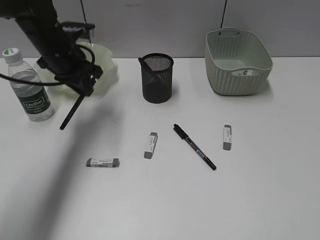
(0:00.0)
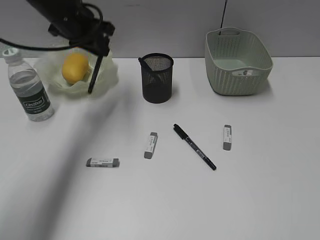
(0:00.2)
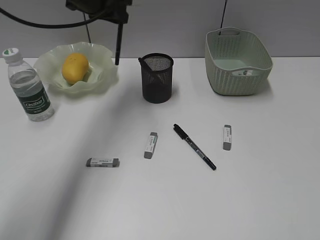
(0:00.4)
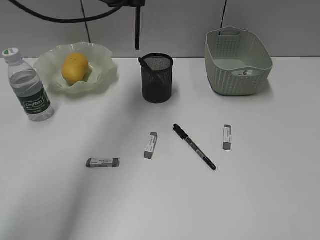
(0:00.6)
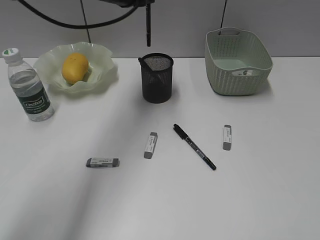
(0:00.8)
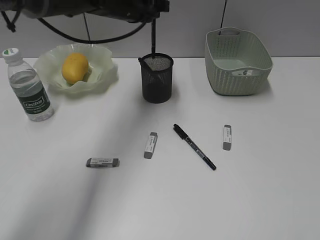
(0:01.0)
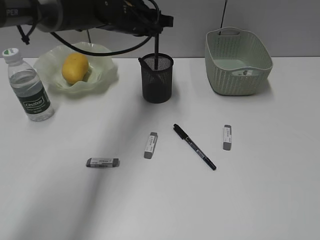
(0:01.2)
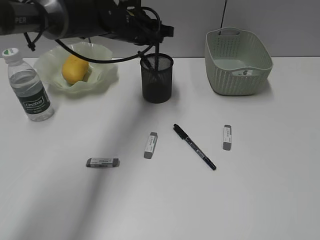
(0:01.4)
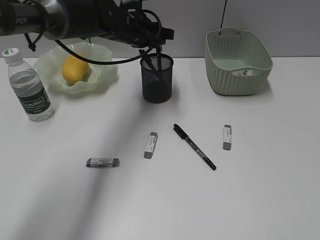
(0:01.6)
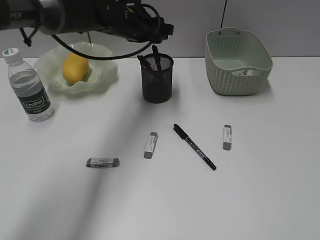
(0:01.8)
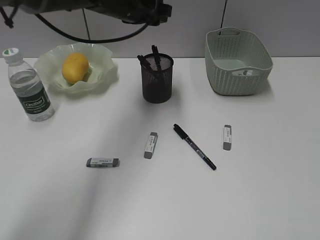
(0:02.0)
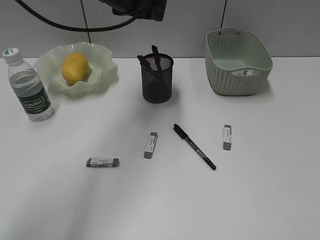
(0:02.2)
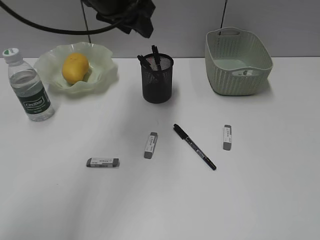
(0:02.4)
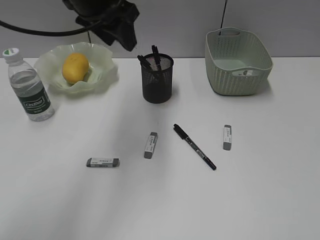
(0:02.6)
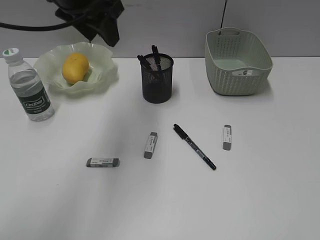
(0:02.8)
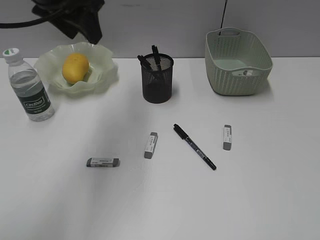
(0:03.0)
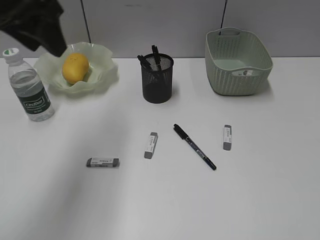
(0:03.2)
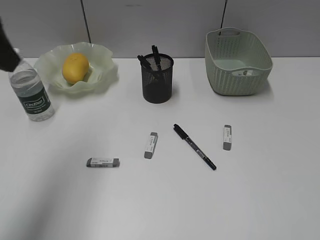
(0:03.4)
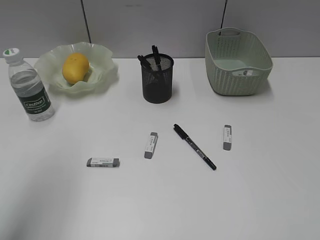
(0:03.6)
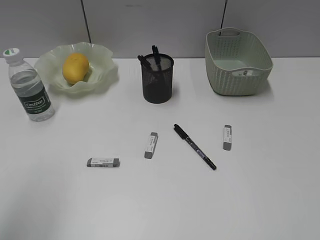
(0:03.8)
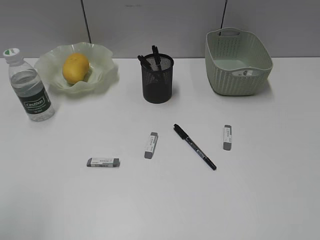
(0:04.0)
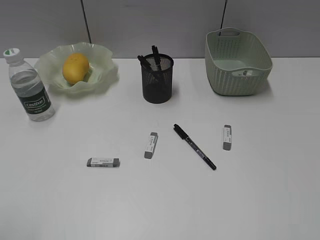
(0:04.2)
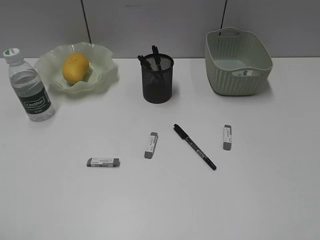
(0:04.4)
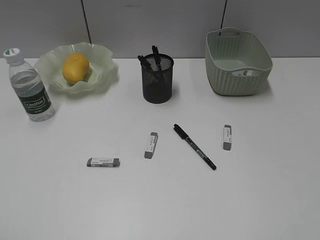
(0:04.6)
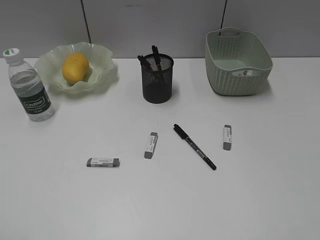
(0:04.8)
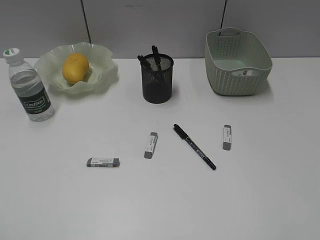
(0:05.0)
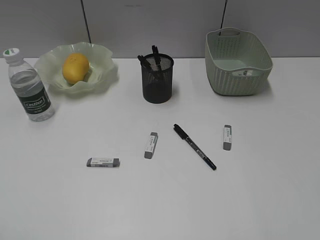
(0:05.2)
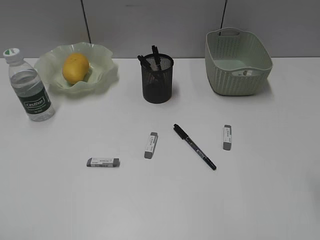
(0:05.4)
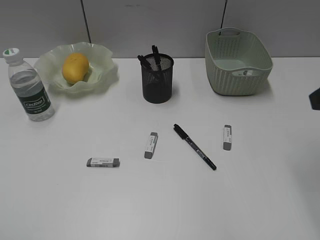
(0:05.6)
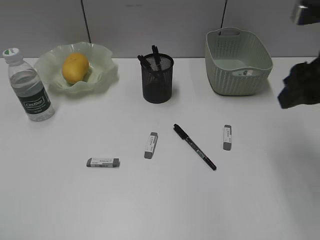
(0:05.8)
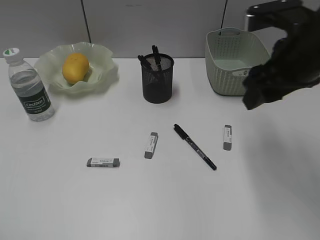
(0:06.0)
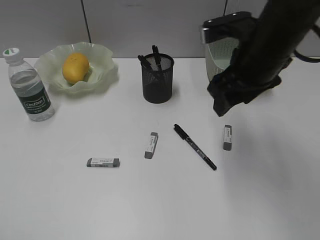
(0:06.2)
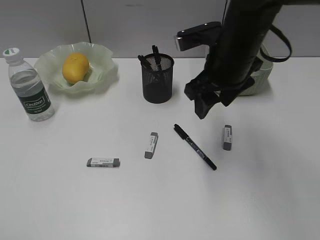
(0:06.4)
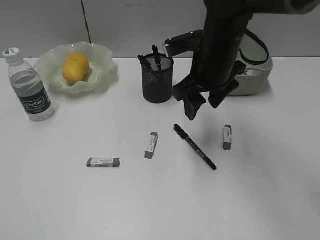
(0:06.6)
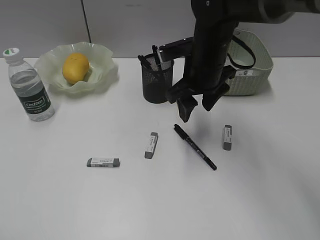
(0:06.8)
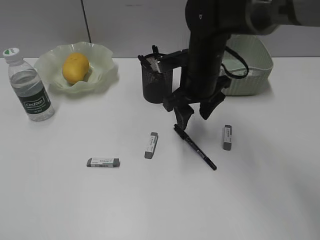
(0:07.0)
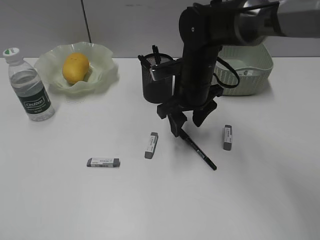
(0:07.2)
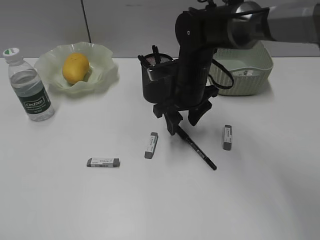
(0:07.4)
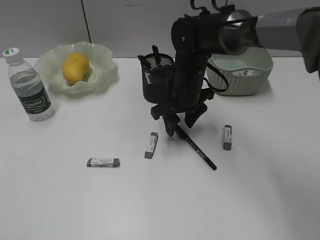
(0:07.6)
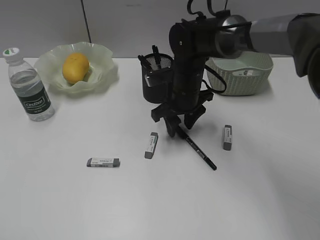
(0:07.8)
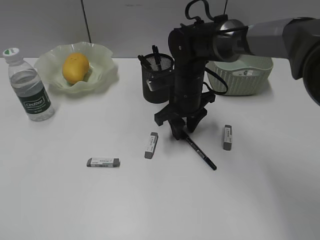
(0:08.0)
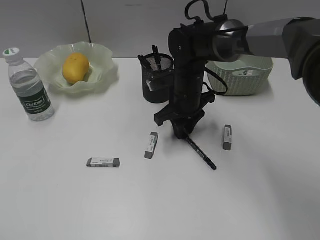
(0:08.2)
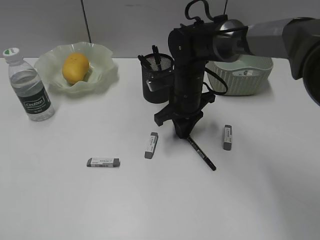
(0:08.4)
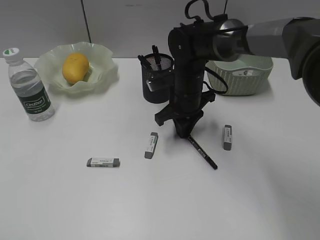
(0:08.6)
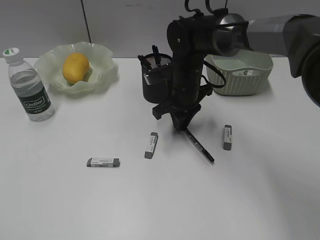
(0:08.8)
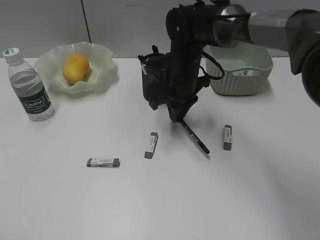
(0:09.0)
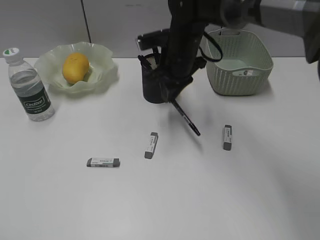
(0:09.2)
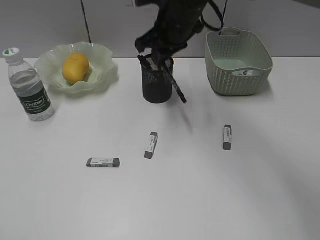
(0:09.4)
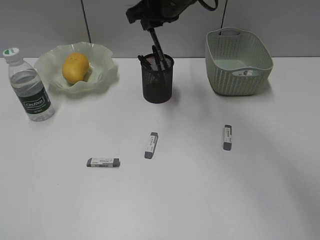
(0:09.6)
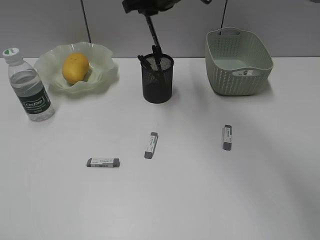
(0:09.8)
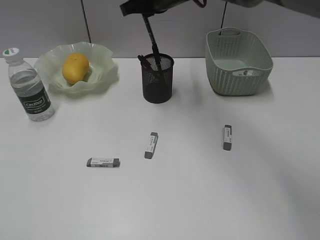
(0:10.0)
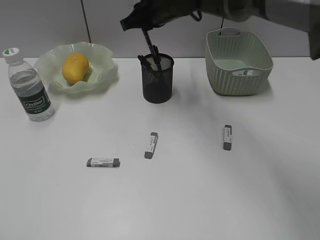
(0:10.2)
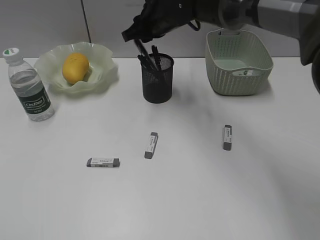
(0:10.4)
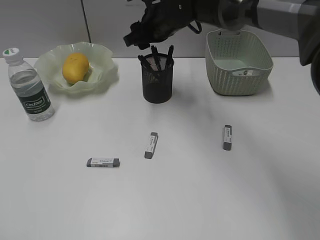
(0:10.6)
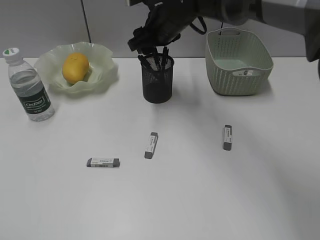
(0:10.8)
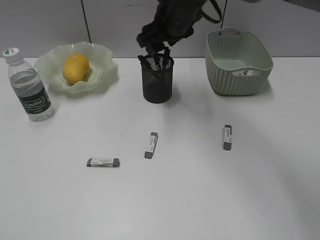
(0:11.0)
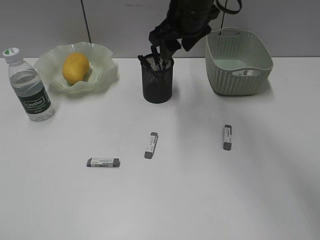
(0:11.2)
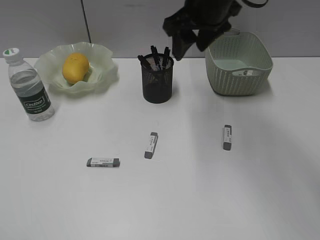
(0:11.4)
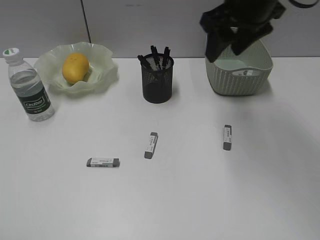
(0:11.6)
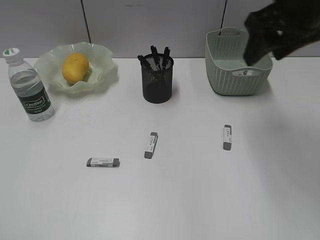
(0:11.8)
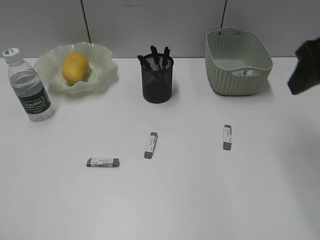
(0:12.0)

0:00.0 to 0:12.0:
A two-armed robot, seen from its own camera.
Step, 0:00.0 to 0:01.8: Place the black pen in pen holder with left gripper.
Step, 0:02.0 to 0:08.4: Grasp the black pen with right gripper.
Step, 0:08.6 to 0:10.4: Place the black pen in pen holder with right gripper.
0:00.0 to 0:01.6: The left gripper moves to the right and forward, some 15 cm.
0:01.6 to 0:03.0: The left gripper moves upward, backward and to the left, approximately 20 cm.
0:03.0 to 0:04.4: The left gripper travels backward and to the left by approximately 40 cm.
0:04.4 to 0:06.0: The right gripper heads forward and to the left, covering about 30 cm.
0:06.0 to 0:07.6: The right gripper is displaced downward, to the left and forward by approximately 20 cm.
0:07.6 to 0:09.0: The right gripper closes up.
0:09.0 to 0:10.4: The right gripper moves upward and forward, some 10 cm.
0:10.4 to 0:12.0: The right gripper is displaced to the right, backward and upward by roughly 35 cm, and opens its fingers.

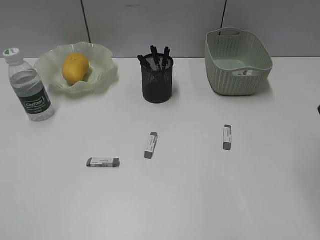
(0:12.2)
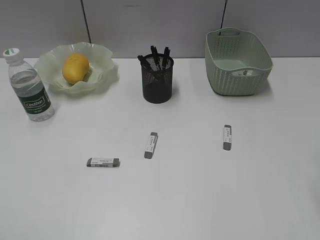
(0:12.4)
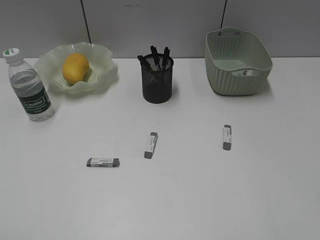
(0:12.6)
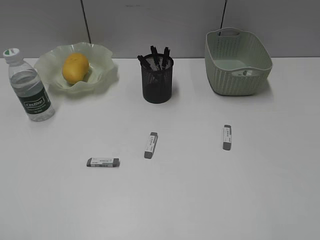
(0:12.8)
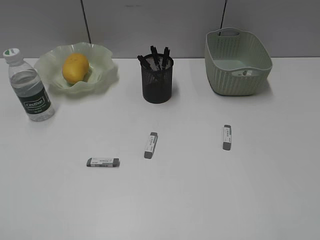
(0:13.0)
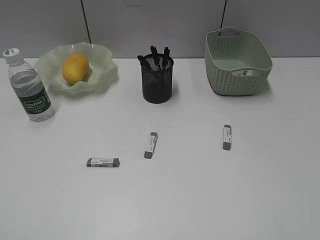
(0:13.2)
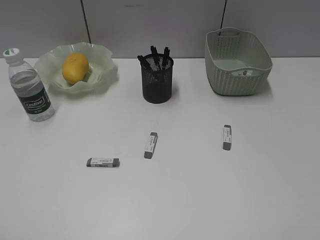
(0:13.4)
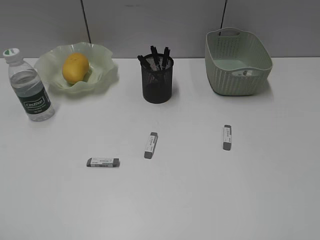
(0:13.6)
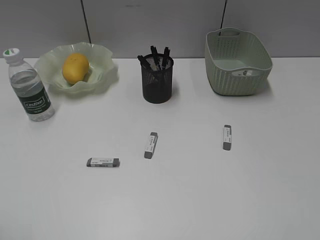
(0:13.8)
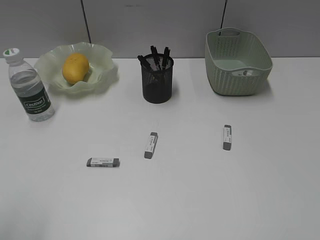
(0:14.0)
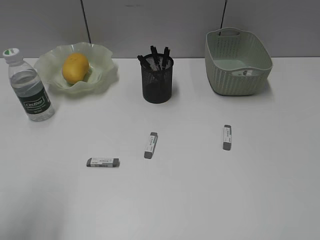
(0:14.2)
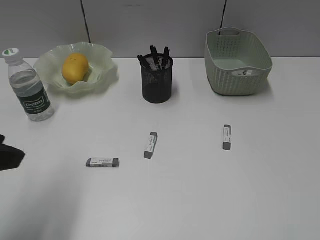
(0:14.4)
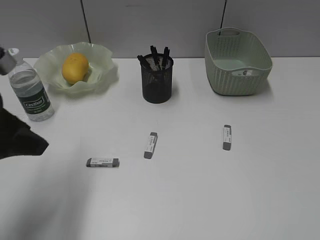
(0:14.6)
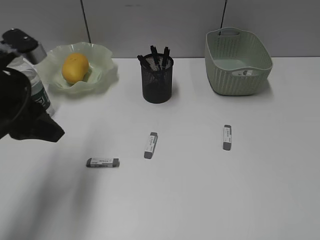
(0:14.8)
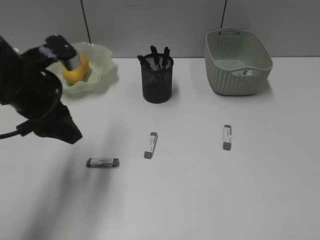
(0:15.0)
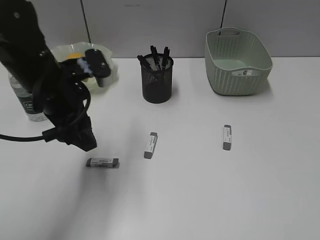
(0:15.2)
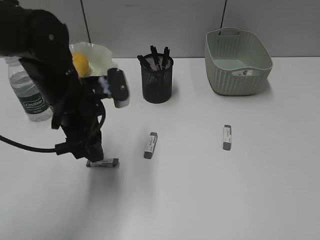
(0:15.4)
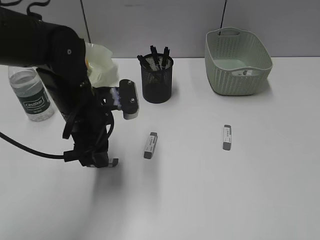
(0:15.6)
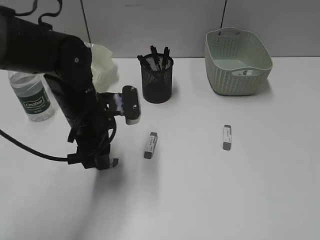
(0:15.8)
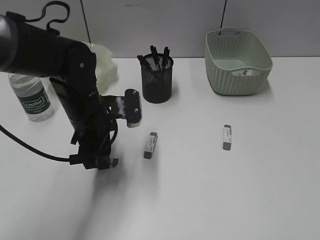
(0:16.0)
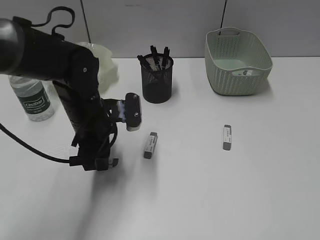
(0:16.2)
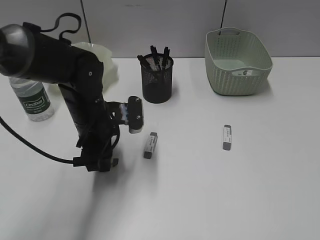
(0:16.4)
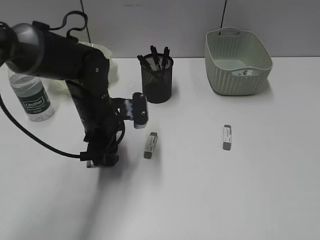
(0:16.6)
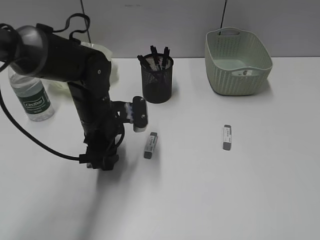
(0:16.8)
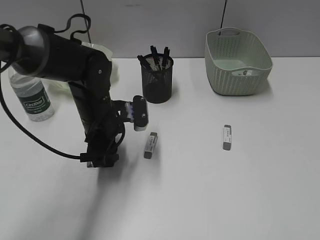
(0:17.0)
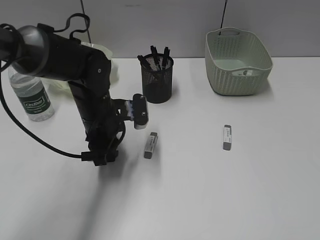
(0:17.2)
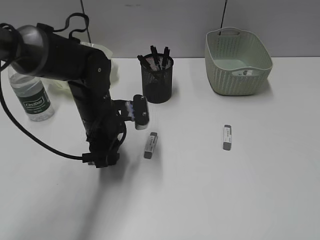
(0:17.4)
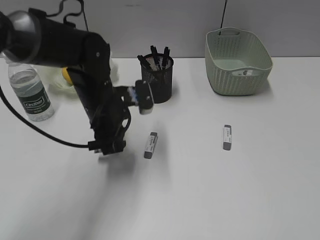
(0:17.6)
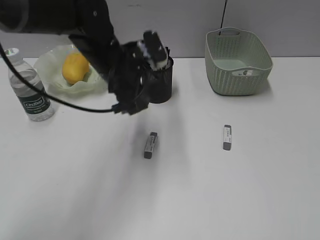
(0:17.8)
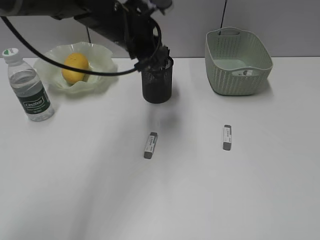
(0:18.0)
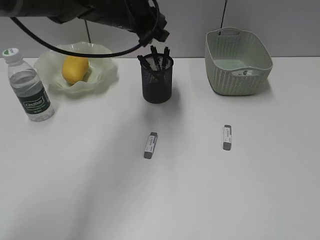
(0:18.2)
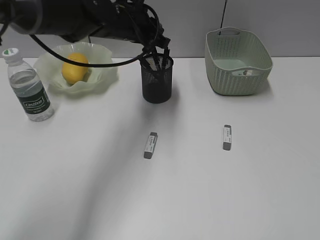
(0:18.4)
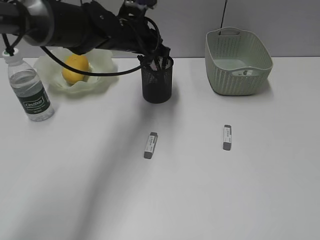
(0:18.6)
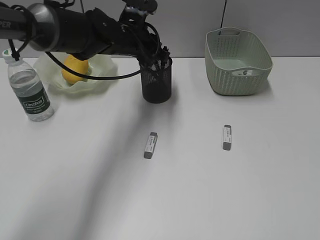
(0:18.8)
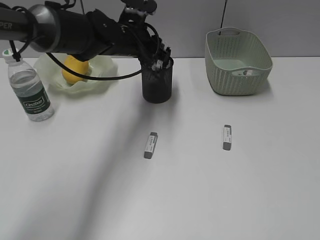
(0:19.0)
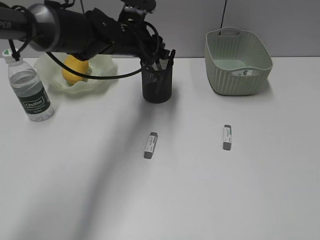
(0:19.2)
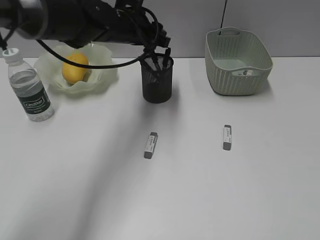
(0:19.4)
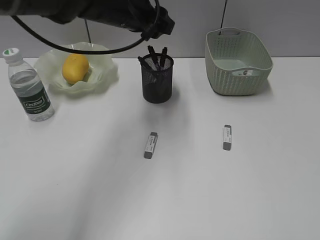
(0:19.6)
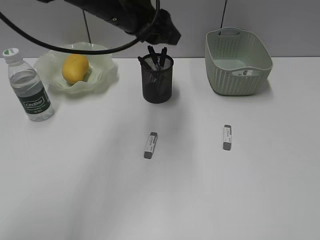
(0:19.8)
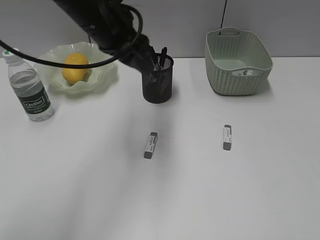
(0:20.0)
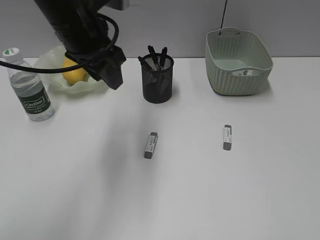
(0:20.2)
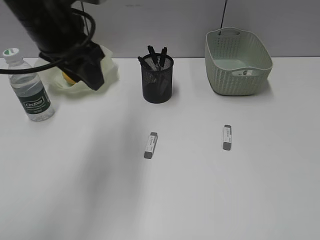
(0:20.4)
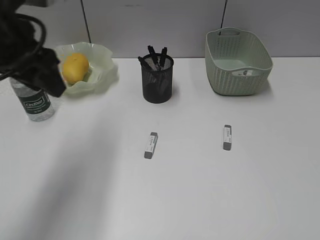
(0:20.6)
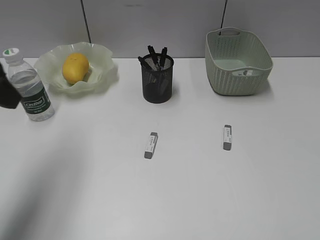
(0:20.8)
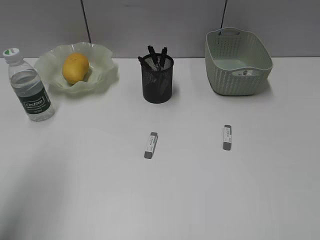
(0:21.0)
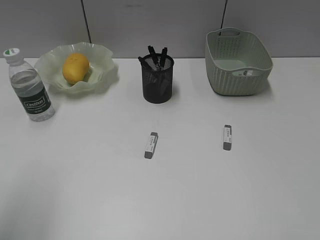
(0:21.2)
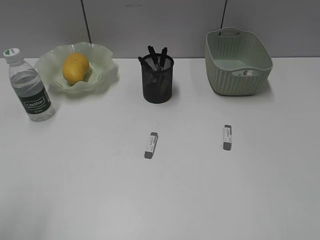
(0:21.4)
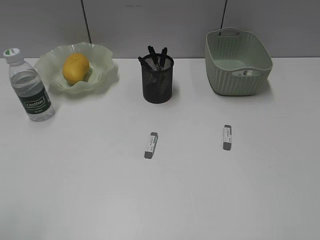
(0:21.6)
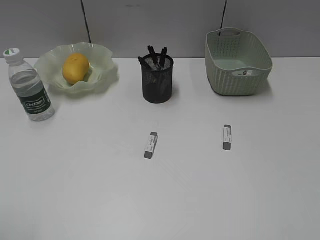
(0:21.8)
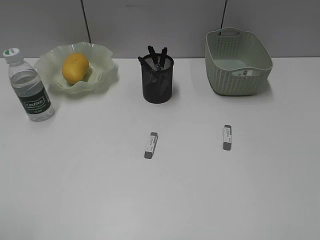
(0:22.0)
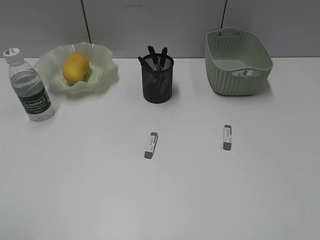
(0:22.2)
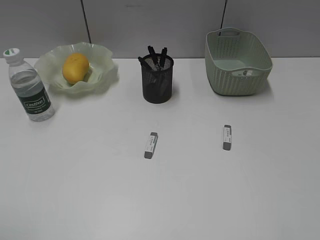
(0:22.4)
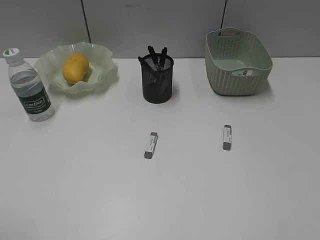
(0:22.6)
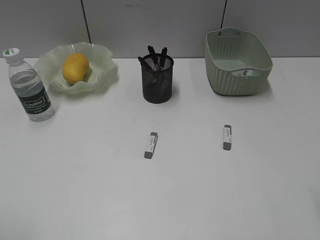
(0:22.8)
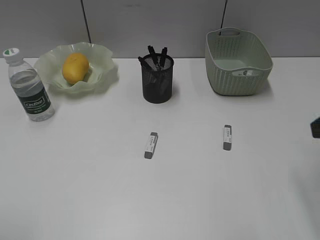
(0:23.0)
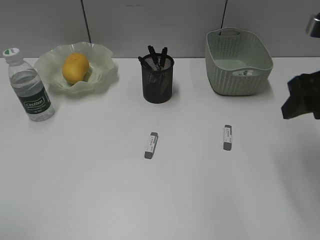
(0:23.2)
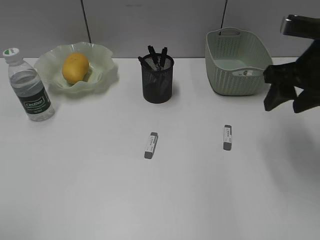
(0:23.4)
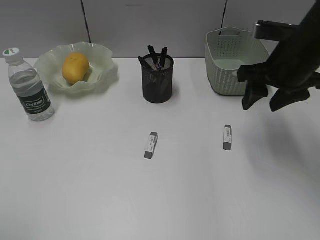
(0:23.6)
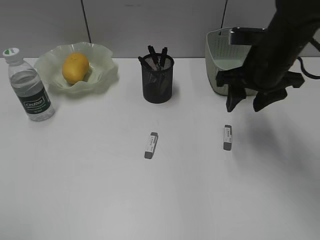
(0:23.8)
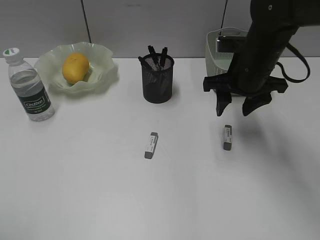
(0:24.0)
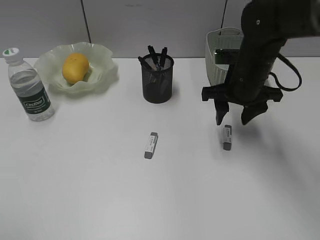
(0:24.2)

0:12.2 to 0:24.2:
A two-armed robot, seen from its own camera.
Step, 0:12.2 to 0:17.2: Grasp the eraser with left gripper.
Step, 0:17.4 to 0:19.2: Place the eraser in pen holder with left gripper.
0:13.8 to 0:15.2: The left gripper heads forward and to the right, covering roughly 30 cm.
0:15.2 to 0:16.6: The left gripper is displaced downward by about 10 cm.
0:16.6 to 0:18.2: The left gripper is displaced upward and forward by some 15 cm, and closes up.
0:18.2 to 0:19.8: The left gripper moves some 5 cm downward and comes back, and opens.
0:19.8 to 0:21.2: The left gripper is displaced backward and to the left by approximately 35 cm.
0:21.2 to 0:22.6: The left gripper heads backward, covering roughly 10 cm.
0:22.6 to 0:24.2: The right gripper is displaced forward, to the left and downward by approximately 35 cm.
